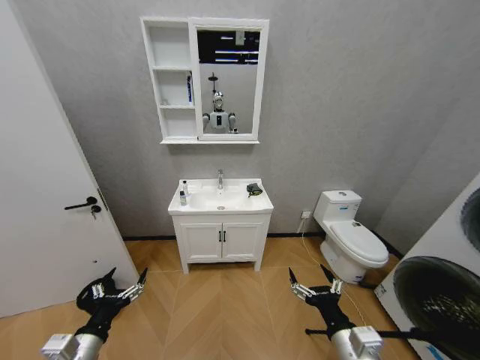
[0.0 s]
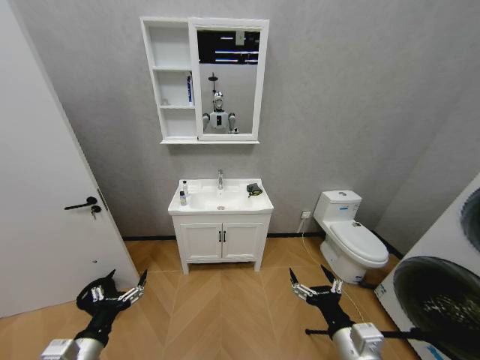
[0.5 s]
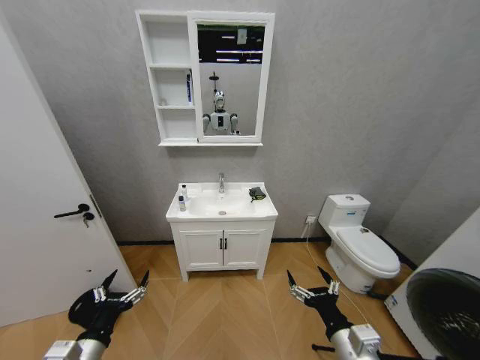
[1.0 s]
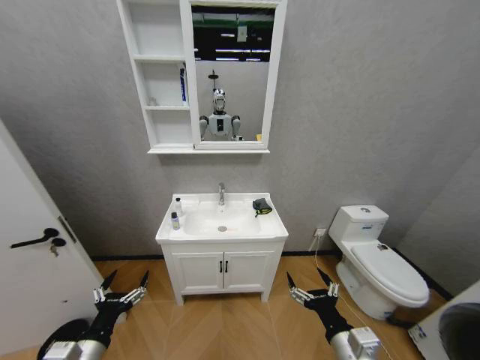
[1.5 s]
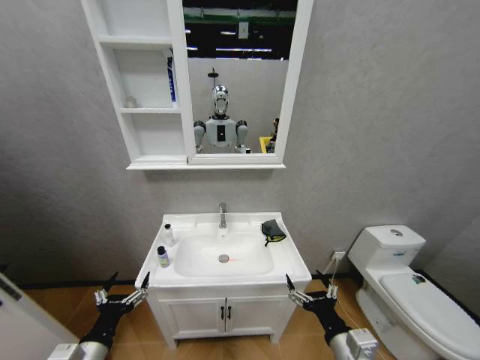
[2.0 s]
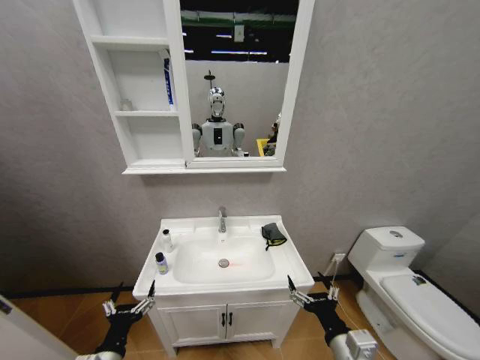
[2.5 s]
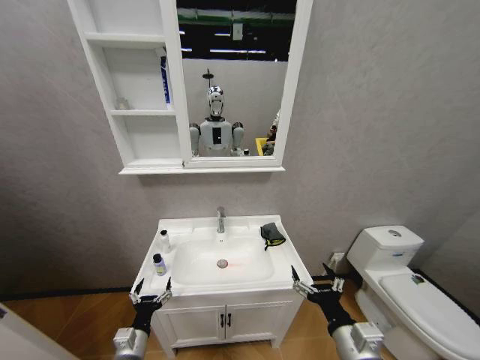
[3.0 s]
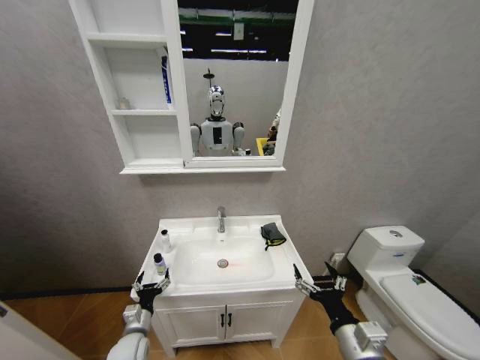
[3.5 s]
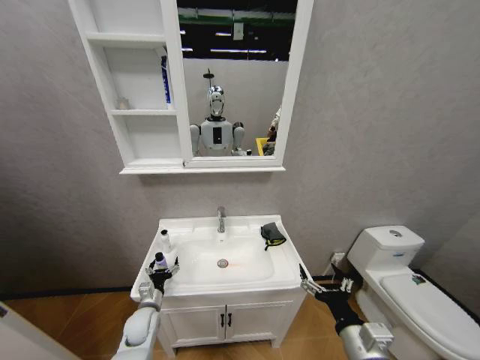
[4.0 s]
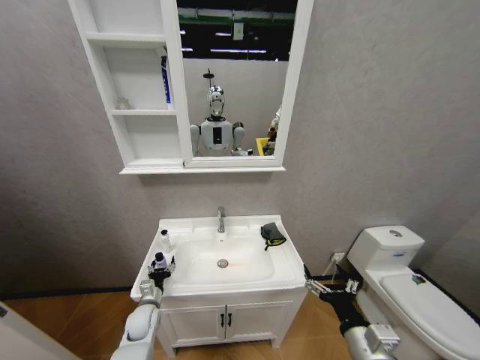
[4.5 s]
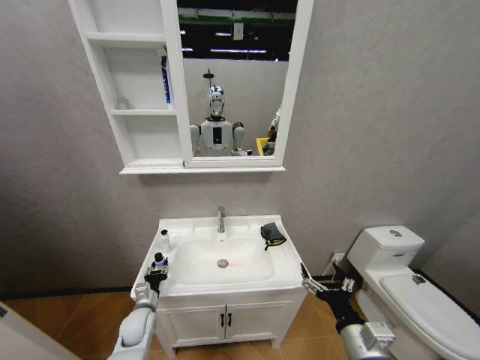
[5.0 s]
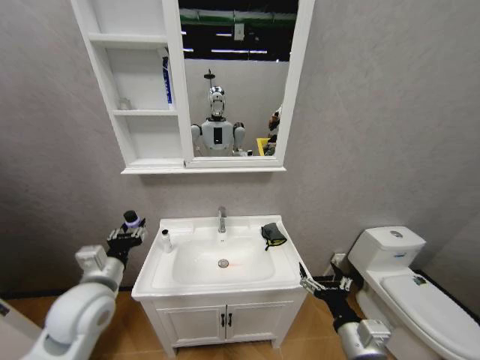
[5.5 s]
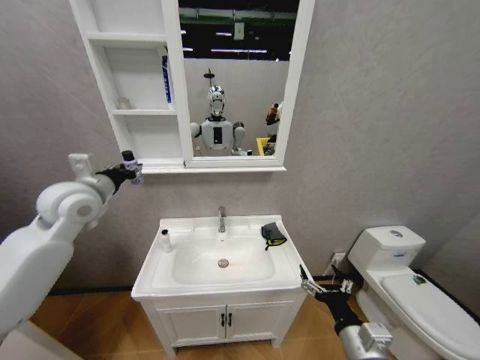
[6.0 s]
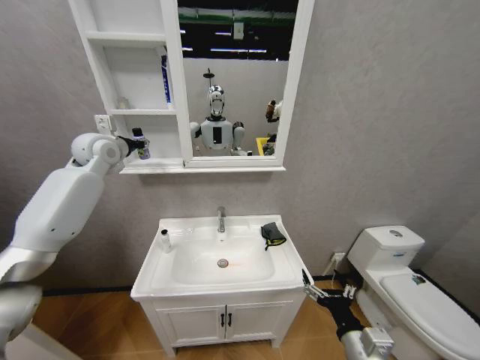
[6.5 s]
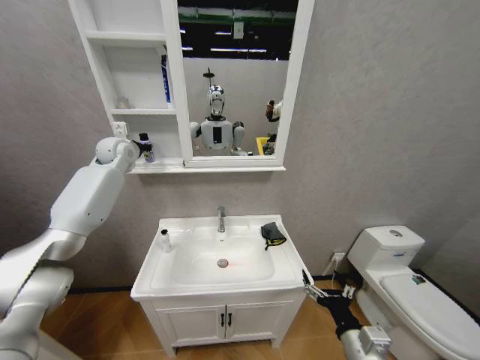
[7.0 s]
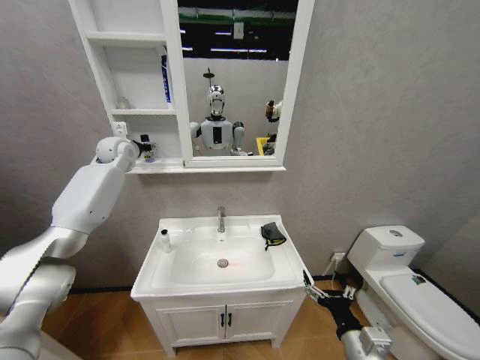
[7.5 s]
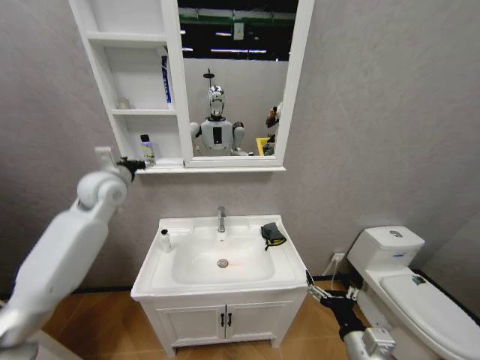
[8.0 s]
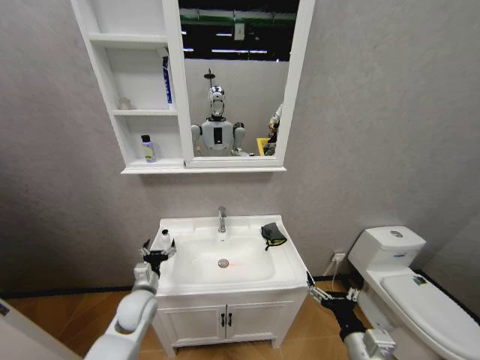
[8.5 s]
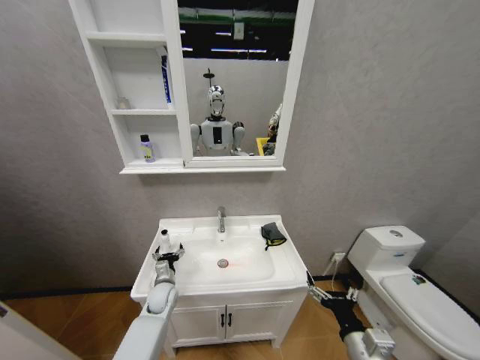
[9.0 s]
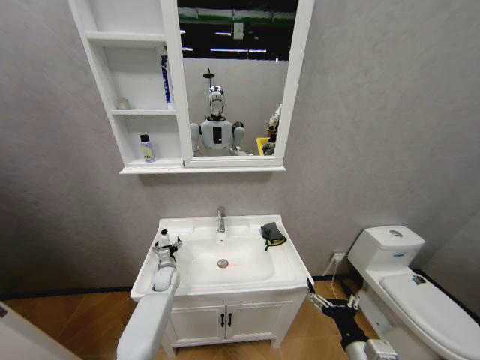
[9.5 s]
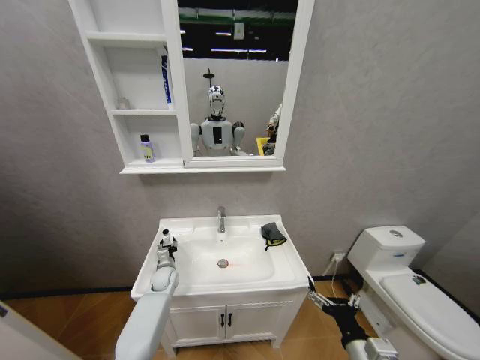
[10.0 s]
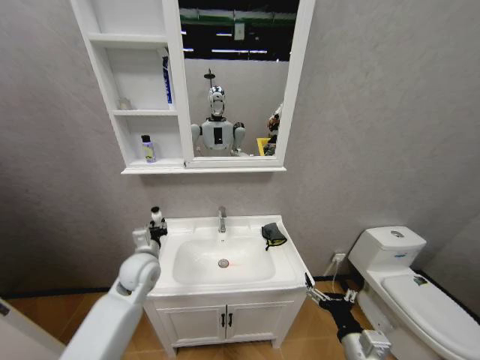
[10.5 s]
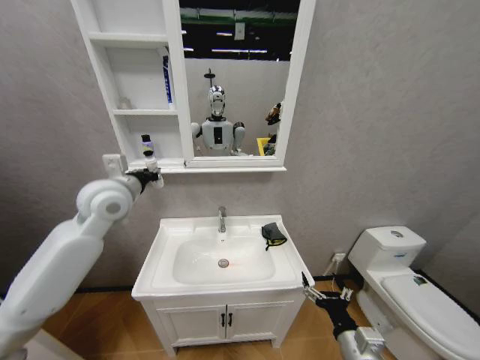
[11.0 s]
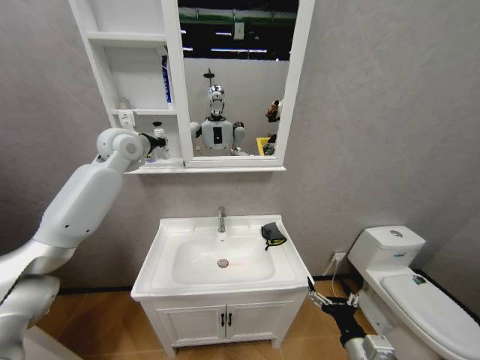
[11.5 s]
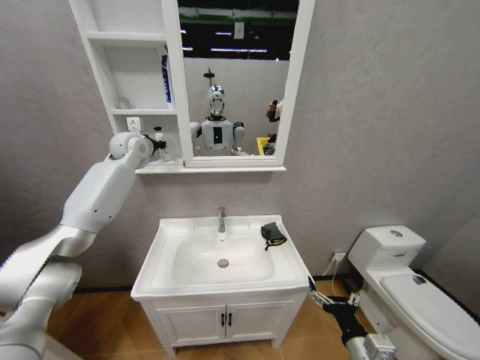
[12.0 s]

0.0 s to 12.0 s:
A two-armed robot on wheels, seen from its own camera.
Task of the whole recording: Move facial cleanser and shampoo from washbasin to cabinet, then wipe washbasin with towel.
2.0 to 4.0 s: The left gripper is displaced forward and downward by about 25 cm.
4.0 to 6.0 s: The left gripper goes roughly 40 cm upward, and closes up.
6.0 to 8.0 s: The left gripper travels forward and back again, about 20 cm each way, and opens up.
8.0 to 10.0 s: The left gripper goes approximately 40 cm downward, and closes.
10.0 to 12.0 s: The left gripper moves upward, roughly 50 cm.

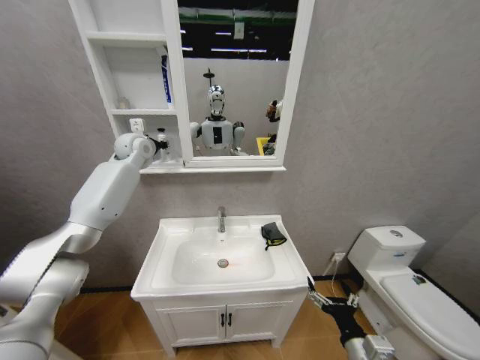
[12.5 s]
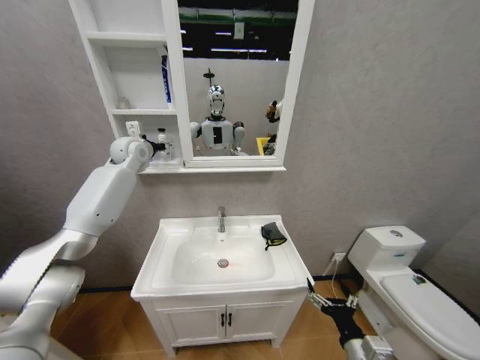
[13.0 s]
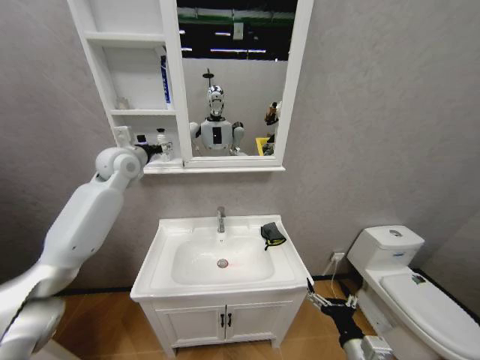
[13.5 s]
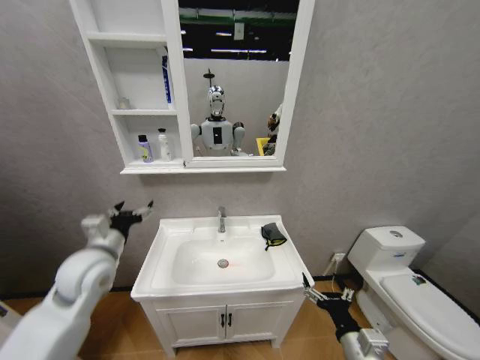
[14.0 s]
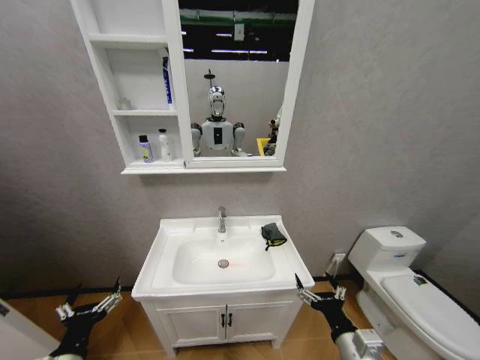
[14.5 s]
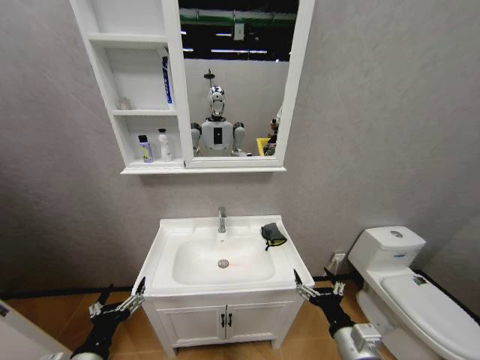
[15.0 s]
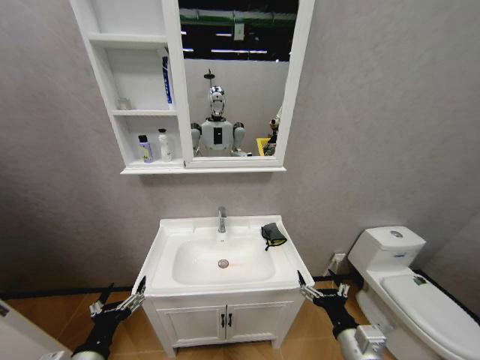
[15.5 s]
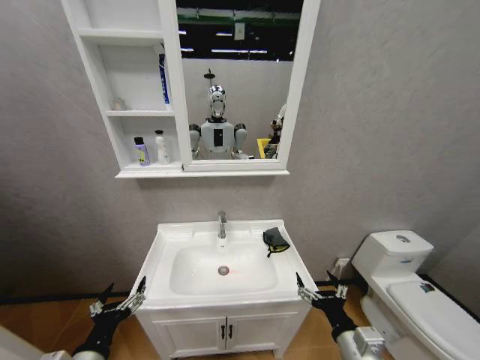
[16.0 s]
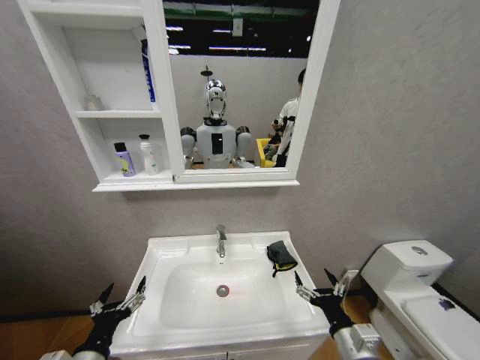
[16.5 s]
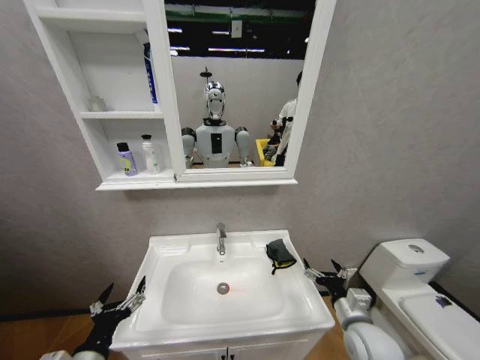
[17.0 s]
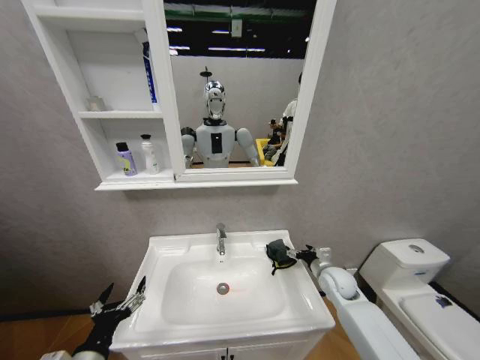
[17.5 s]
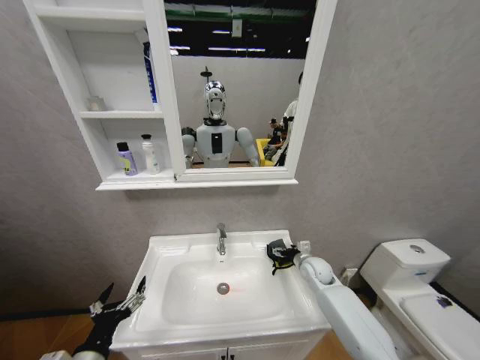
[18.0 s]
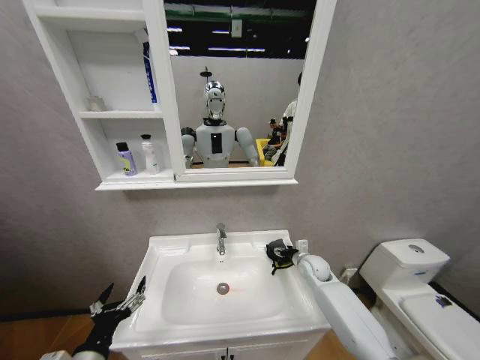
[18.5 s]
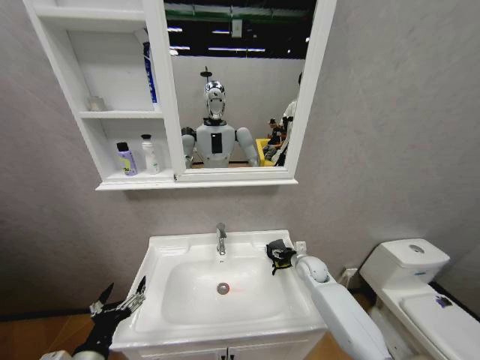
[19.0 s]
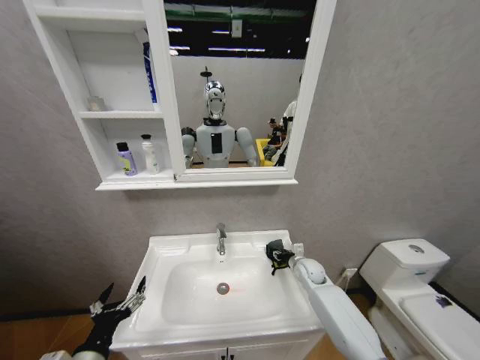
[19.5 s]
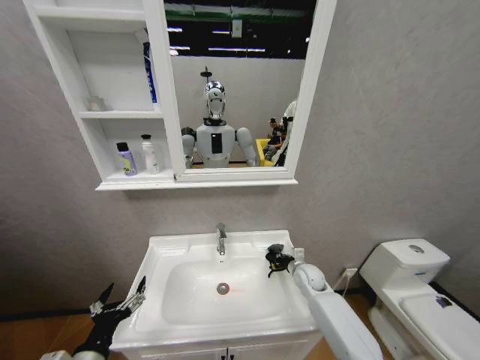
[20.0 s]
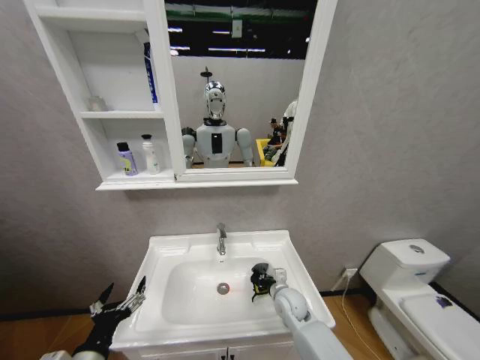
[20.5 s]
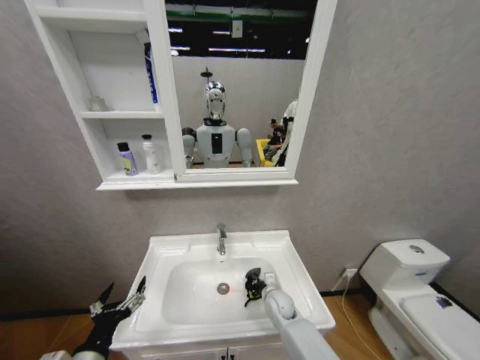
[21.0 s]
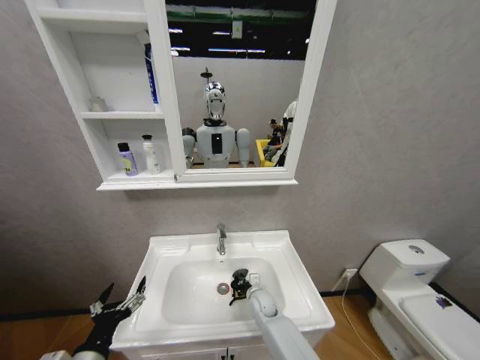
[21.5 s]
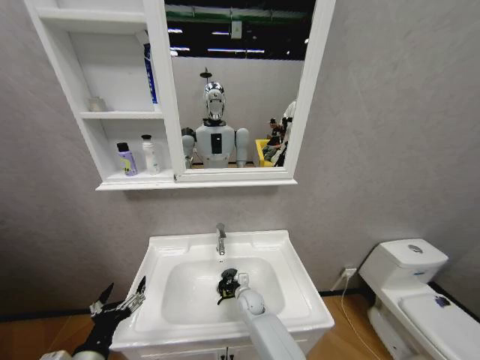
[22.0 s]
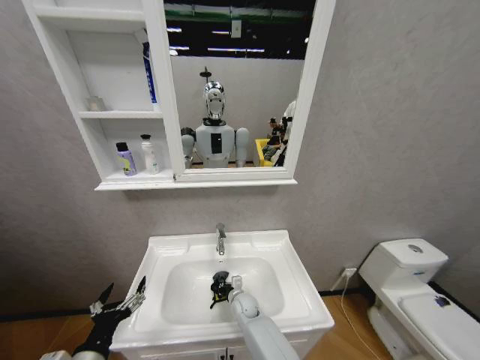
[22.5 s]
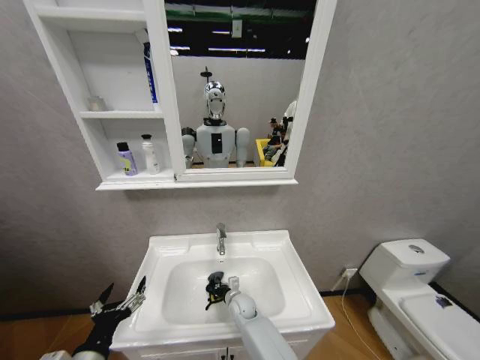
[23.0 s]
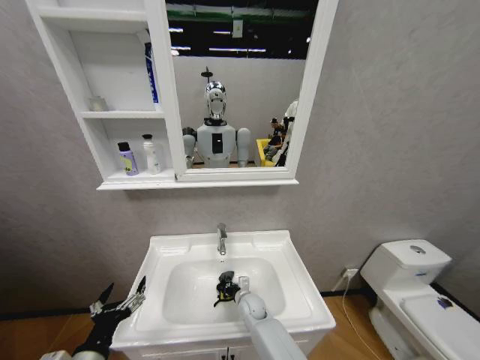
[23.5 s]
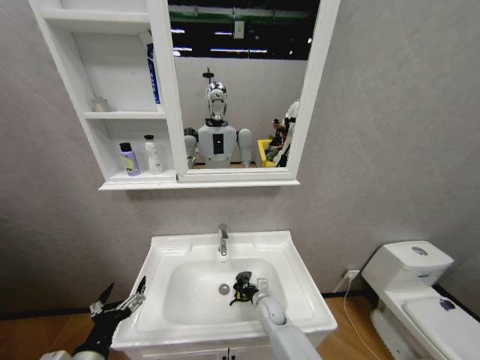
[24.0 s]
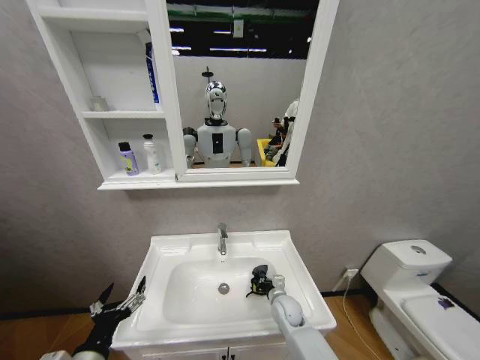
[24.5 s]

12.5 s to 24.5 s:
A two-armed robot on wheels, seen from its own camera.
Task of the whole recording: Move facial cleanser and shampoo from washbasin to cabinet, then wipe washbasin with towel.
12.5 to 14.5 s: The left gripper shifts roughly 60 cm backward and downward, and opens up.
16.5 to 18.5 s: The right gripper shifts roughly 30 cm forward.
18.5 to 20.5 s: The right gripper shifts roughly 15 cm to the left, backward and downward, and closes.
20.5 to 22.5 s: The right gripper moves to the left and downward, approximately 15 cm.
22.5 to 24.5 s: The right gripper heads to the right, covering approximately 15 cm.

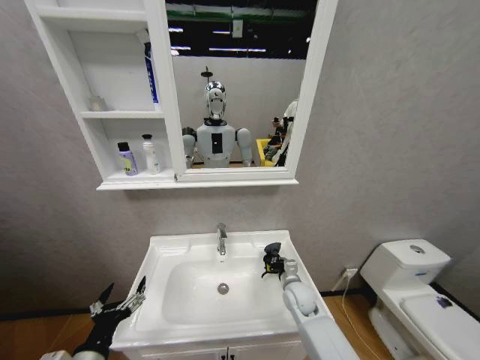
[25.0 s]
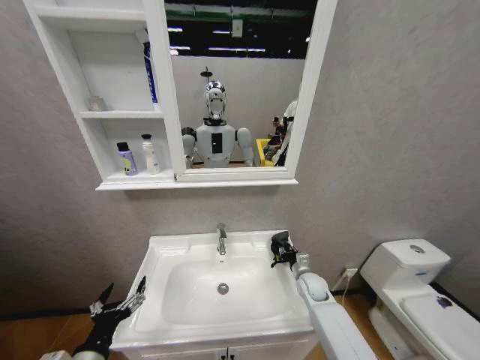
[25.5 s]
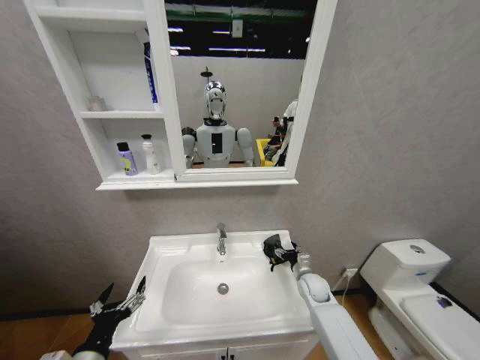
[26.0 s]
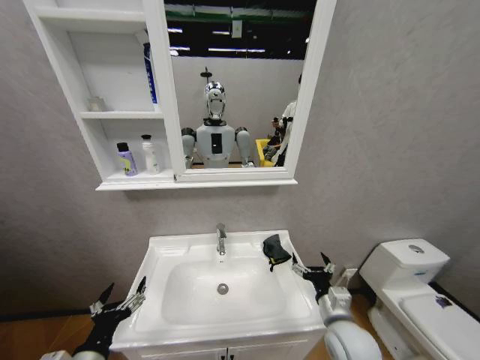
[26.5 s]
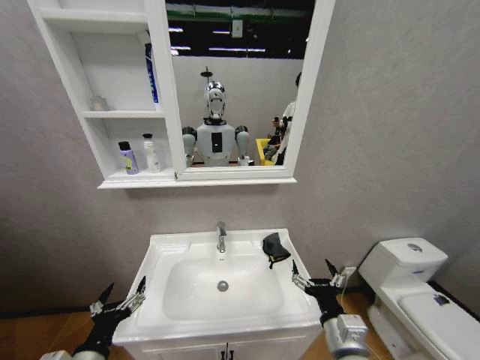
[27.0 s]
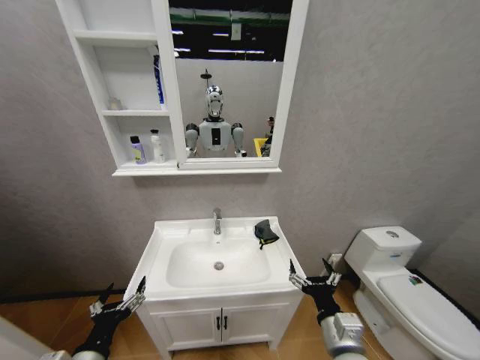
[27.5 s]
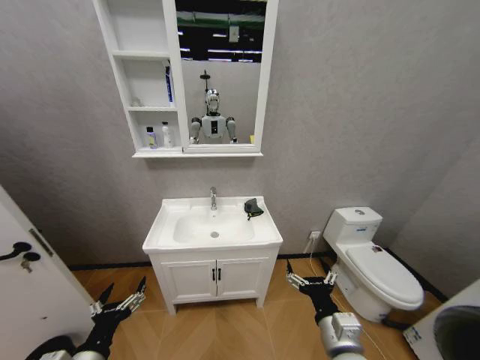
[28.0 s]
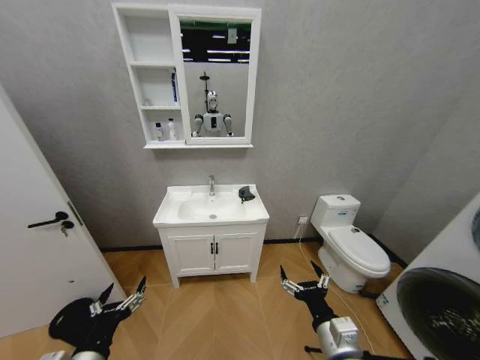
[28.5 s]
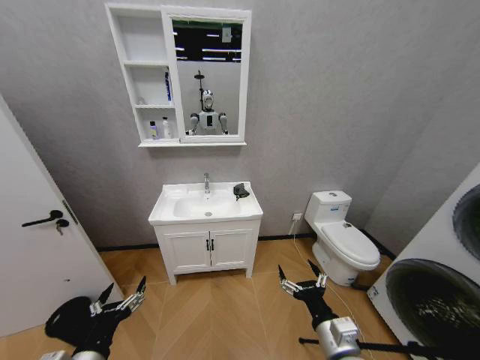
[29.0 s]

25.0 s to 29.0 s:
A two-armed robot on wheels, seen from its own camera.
Task of the whole recording: Move facial cleanser and shampoo from washbasin to cabinet, then wipe washbasin with towel.
25.0 to 27.0 s: The right gripper goes about 25 cm backward and upward, and opens up.
